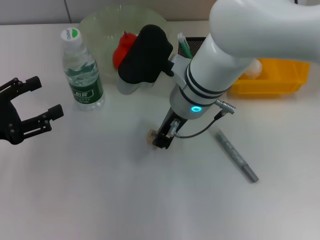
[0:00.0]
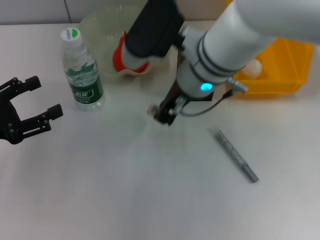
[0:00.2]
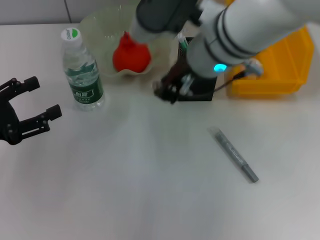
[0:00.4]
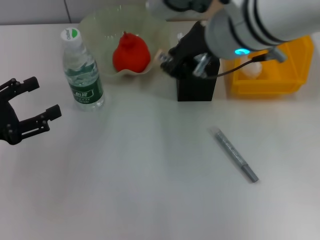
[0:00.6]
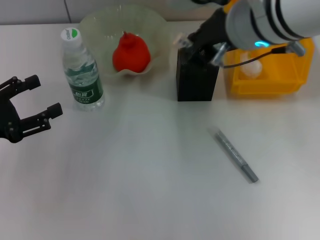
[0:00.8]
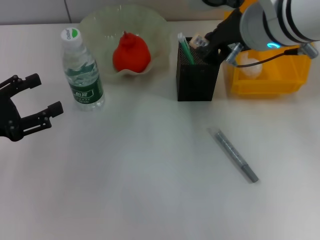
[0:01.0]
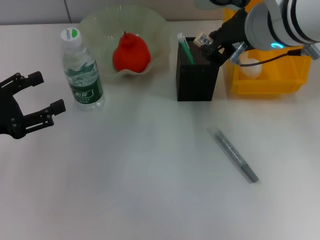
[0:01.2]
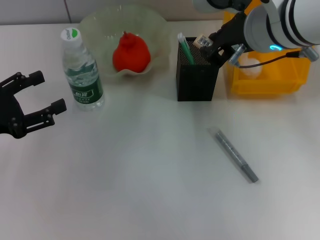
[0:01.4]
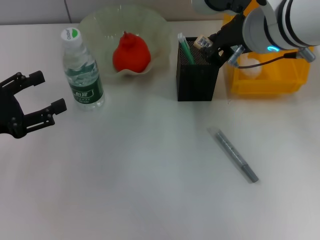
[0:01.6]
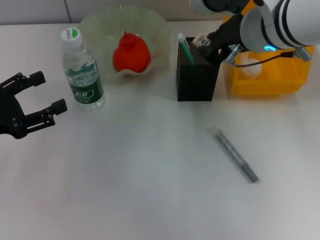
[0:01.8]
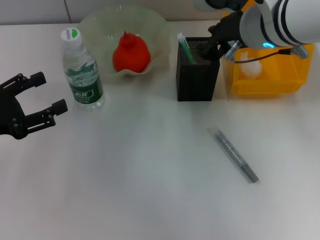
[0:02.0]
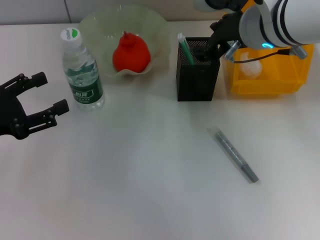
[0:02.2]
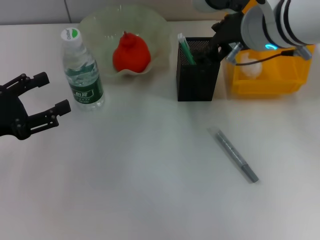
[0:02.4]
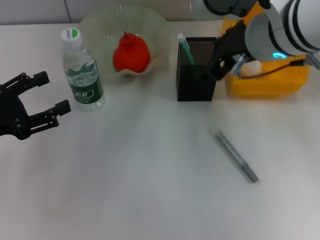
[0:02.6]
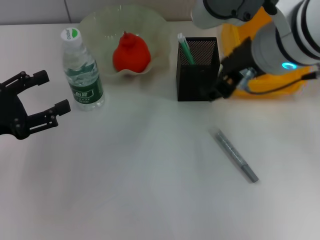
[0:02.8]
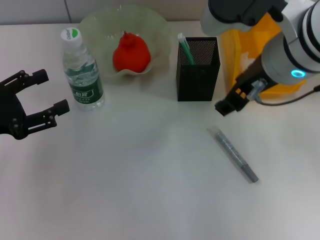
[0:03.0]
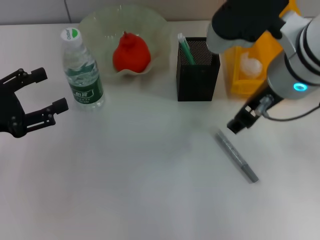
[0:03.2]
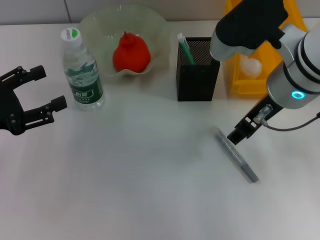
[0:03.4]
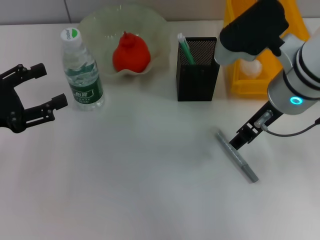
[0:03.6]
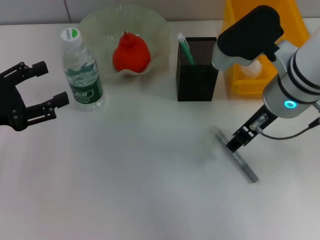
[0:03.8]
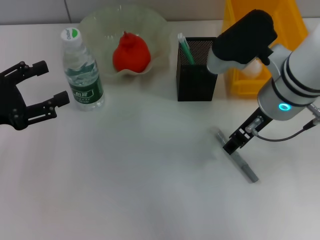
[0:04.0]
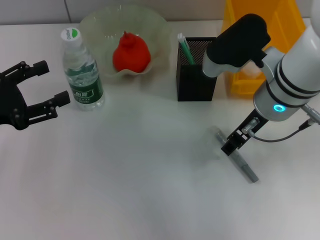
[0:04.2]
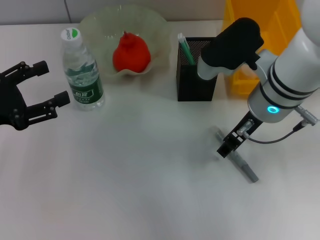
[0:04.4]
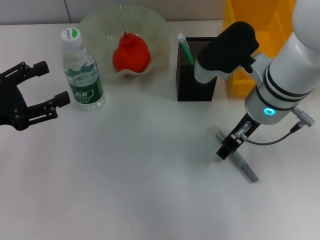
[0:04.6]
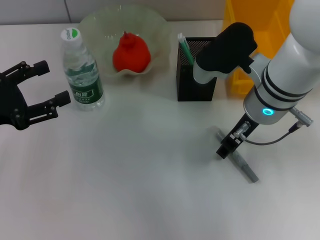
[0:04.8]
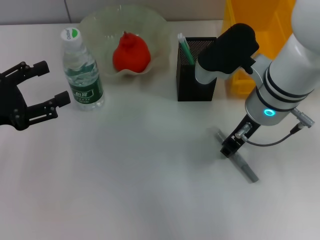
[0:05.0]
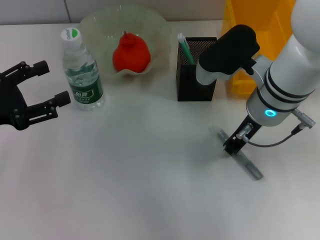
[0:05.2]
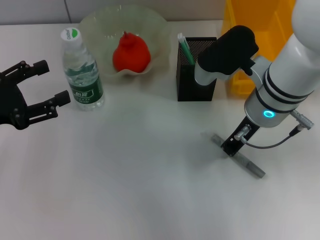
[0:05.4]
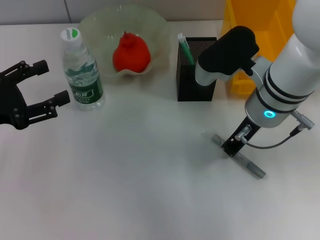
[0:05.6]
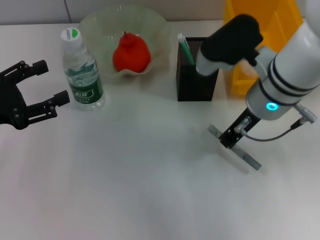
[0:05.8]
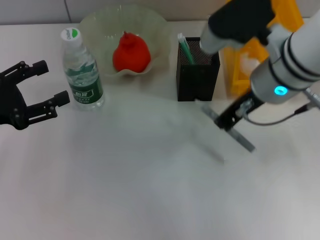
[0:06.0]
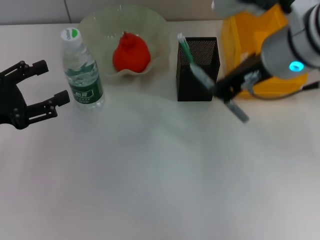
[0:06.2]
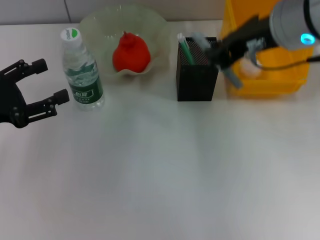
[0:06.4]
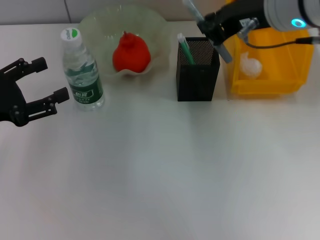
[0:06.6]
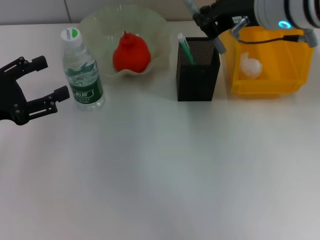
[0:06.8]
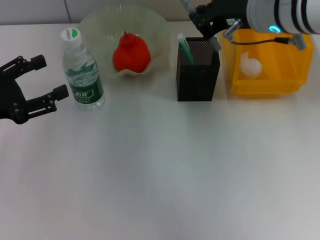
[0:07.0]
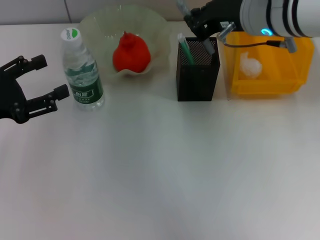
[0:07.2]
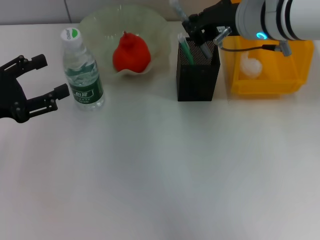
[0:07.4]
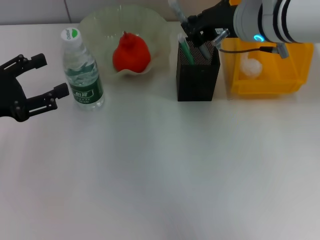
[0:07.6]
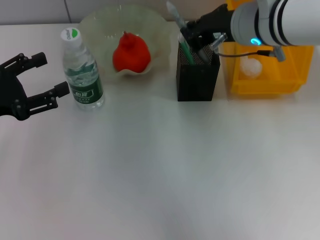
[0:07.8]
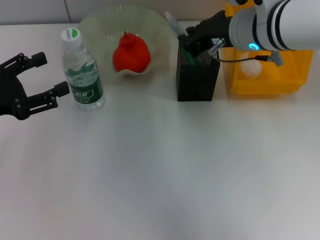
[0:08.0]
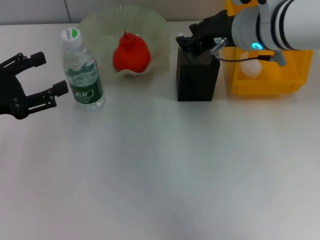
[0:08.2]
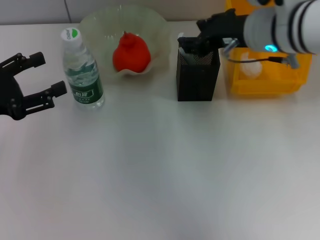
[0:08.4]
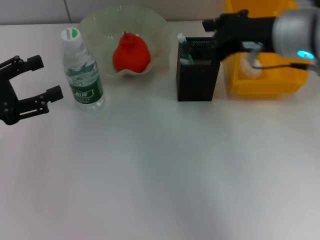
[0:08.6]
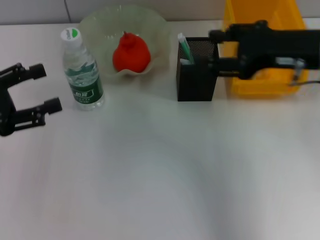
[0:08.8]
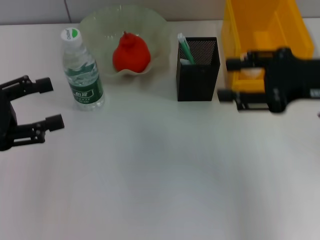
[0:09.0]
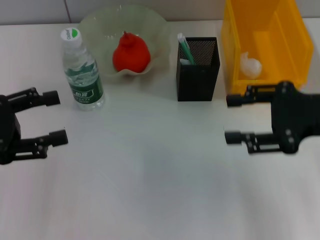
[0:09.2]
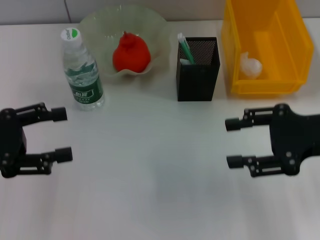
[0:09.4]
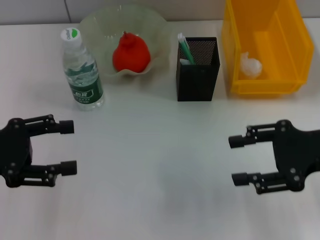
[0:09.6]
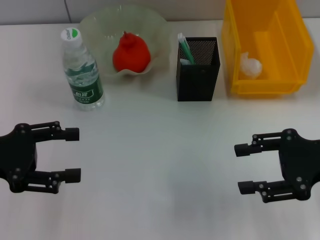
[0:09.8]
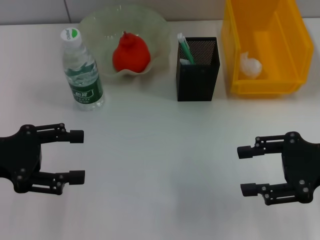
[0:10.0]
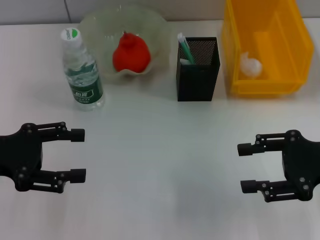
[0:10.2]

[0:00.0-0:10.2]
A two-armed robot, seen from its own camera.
Step, 0:00.0 to 0:02.0: Put the eraser into the pen holder with the right hand.
Step, 0:02.2 to 0:05.2: Grab the gray glue with the right hand.
Step, 0:05.4 to 0:08.4: Place the gray glue into the pen holder with the right hand.
0:00.0 to 0:01.4: The right gripper heads upward and to the right, covering some 10 cm.
0:01.4 to 0:03.0: The right gripper opens.
0:03.0 to 0:04.4: The right gripper travels downward by about 10 cm.
0:04.4 to 0:05.8: The right gripper closes.
0:05.8 to 0:07.2: The right gripper moves upward, approximately 5 cm.
0:07.2 to 0:08.8: The right gripper shifts about 10 cm to the right and backward, and opens up.
0:08.8 to 0:10.2: The right gripper travels downward, backward and to the right by roughly 10 cm.

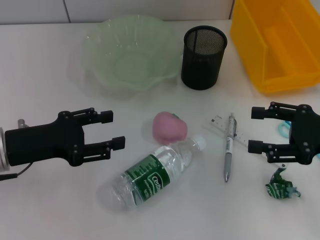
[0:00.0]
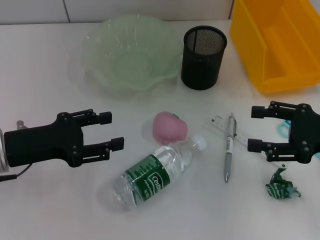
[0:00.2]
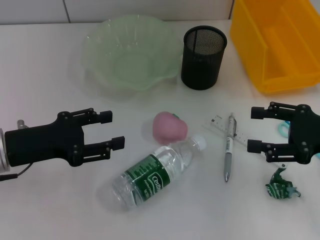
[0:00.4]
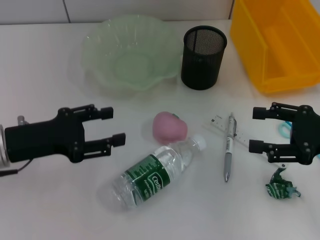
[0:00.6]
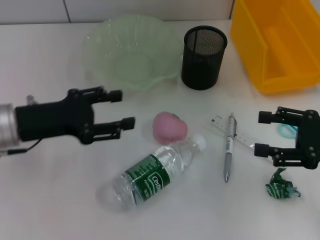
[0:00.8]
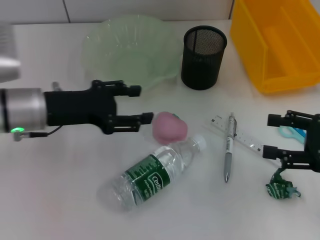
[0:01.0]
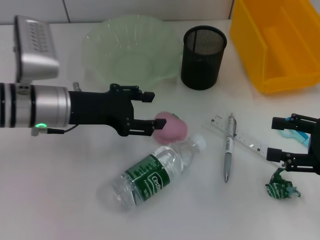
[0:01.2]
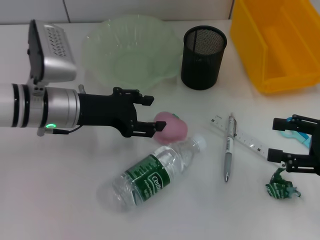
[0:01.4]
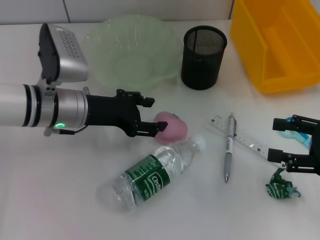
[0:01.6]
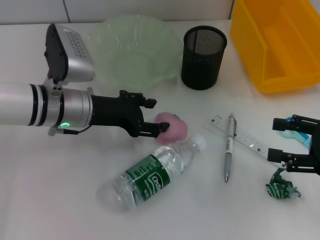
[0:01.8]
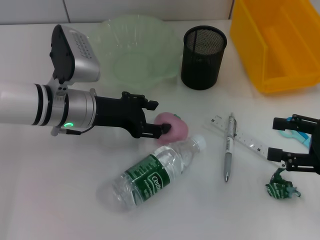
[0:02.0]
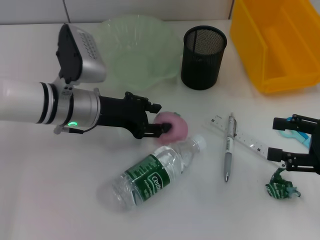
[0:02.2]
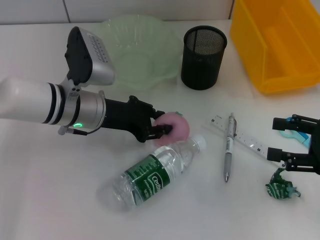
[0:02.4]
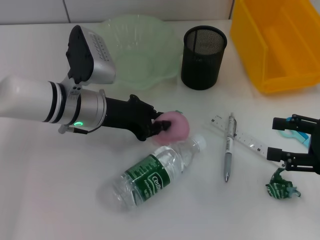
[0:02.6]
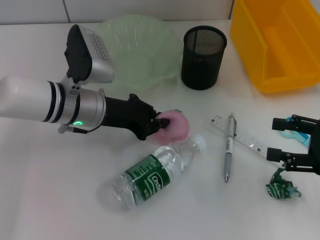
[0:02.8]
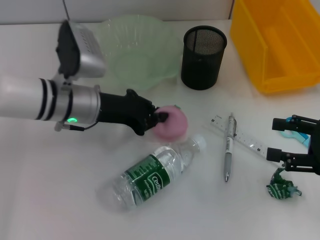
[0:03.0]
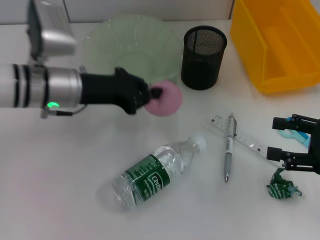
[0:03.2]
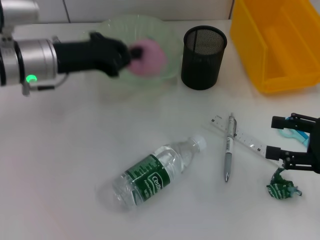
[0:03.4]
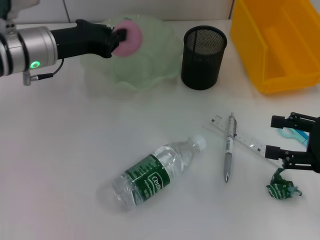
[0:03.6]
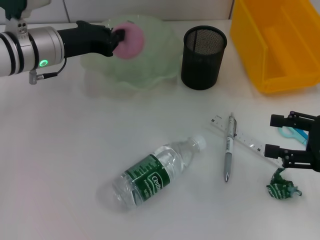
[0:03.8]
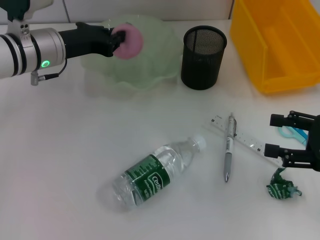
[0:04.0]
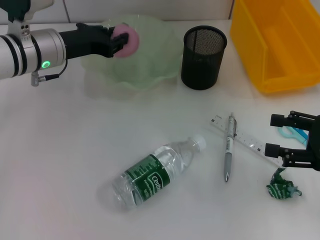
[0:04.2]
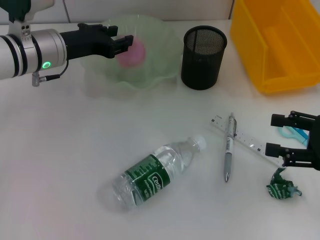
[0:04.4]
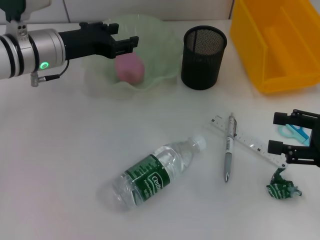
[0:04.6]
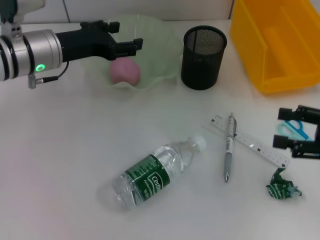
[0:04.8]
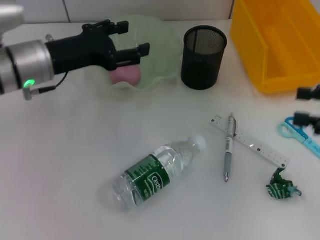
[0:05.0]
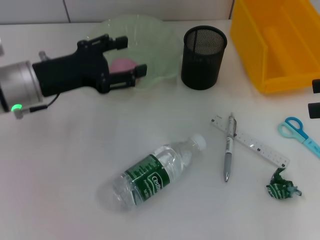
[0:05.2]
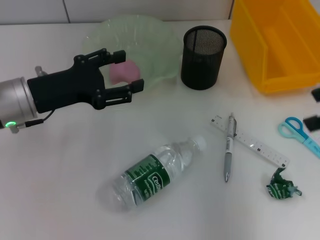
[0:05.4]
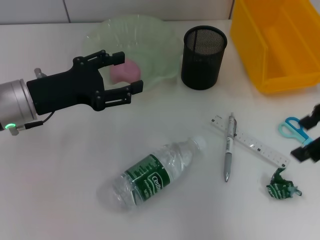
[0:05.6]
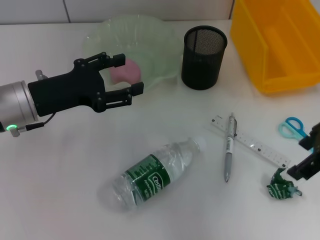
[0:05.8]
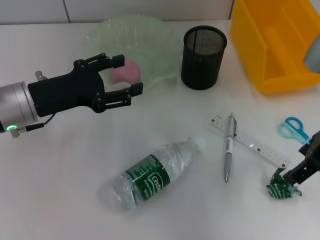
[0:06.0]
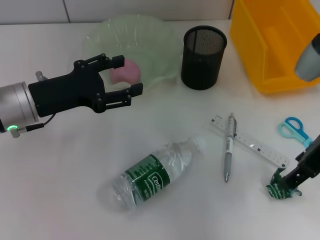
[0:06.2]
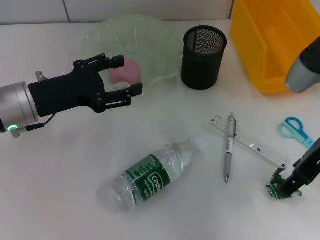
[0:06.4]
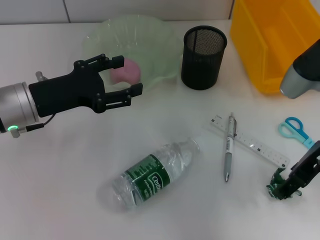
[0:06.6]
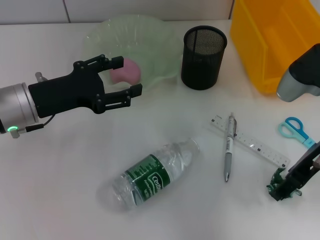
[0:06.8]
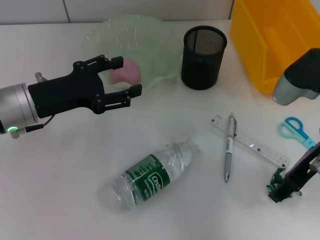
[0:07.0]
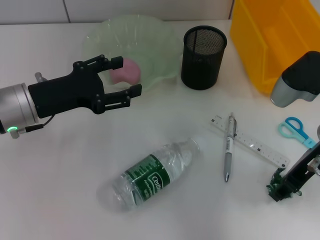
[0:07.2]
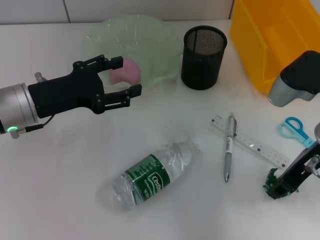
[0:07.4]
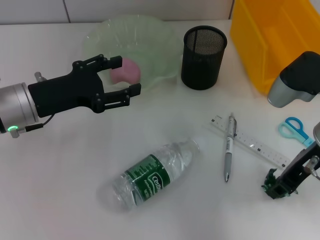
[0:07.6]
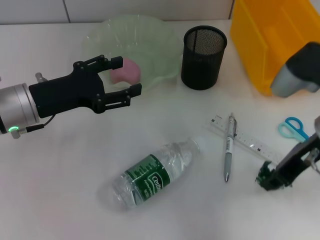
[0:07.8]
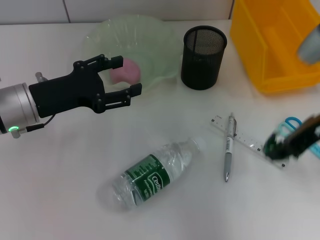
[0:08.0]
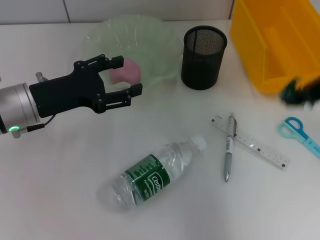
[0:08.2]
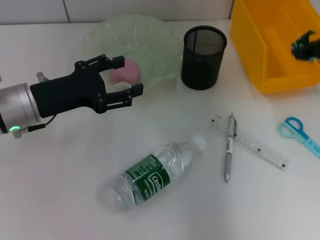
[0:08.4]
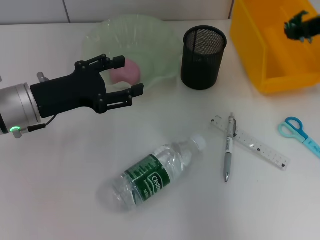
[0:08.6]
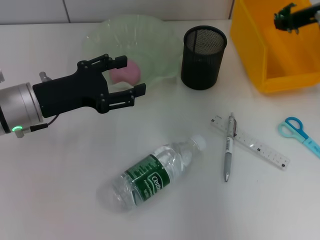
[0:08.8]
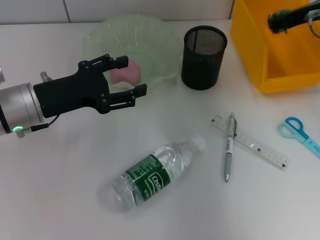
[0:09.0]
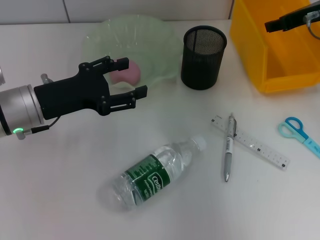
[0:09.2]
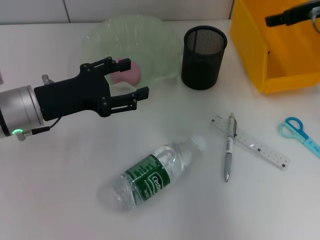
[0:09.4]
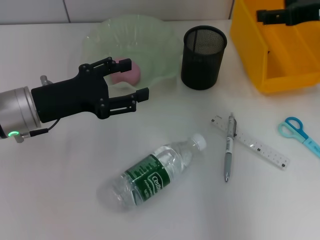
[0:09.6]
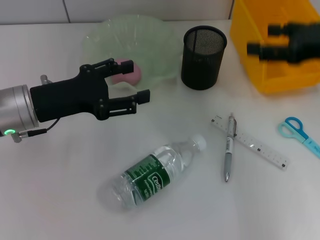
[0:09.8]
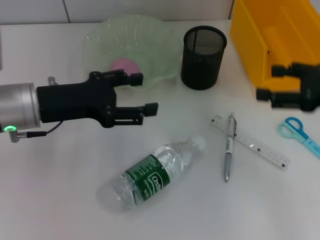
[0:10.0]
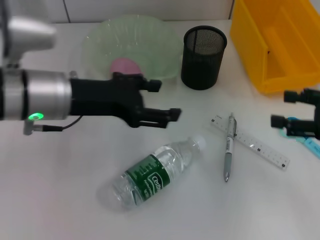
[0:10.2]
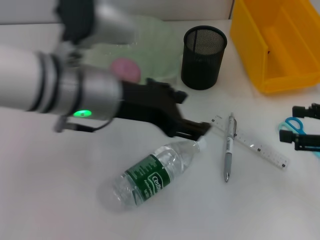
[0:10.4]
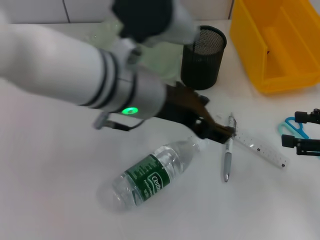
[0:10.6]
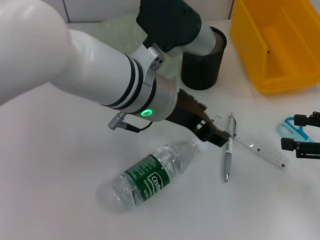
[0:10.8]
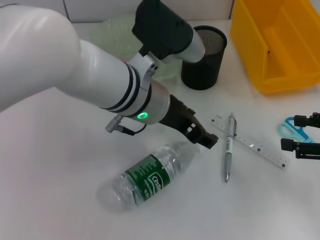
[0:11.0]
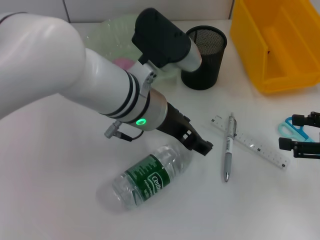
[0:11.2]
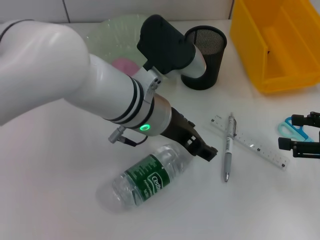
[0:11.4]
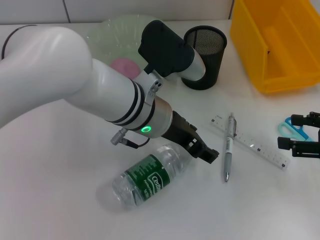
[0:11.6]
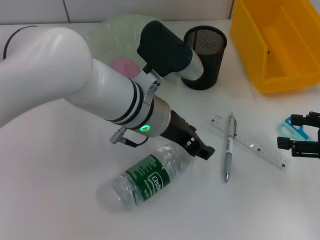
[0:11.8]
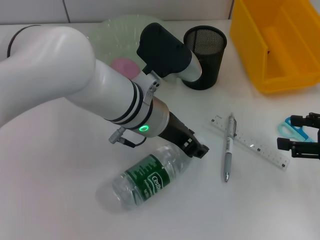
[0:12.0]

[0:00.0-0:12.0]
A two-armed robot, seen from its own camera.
Step, 0:00.0 to 0:02.8: Grab the peach with the left hand.
Step, 0:03.0 to 0:04.4: Place the peach into the fruit bowl with the left hand.
Step, 0:04.6 to 0:07.4: Grab the plastic with the right hand.
Step, 0:07.6 to 0:09.0: Place the plastic into the trash can with the right hand.
0:00.0 to 0:01.6: The left gripper goes approximately 10 cm to the right and forward.
0:01.6 to 0:03.0: The left gripper closes its fingers.
0:03.0 to 0:04.4: The left gripper travels forward by some 5 cm.
0:04.4 to 0:06.0: The right gripper goes approximately 15 cm upward, to the left and forward. Meanwhile the left gripper travels backward by about 10 cm, and opens its fingers.
0:06.0 to 0:07.6: The right gripper heads downward, covering roughly 5 cm, and closes its fingers.
0:07.6 to 0:09.0: The right gripper is displaced forward by approximately 15 cm.
0:09.0 to 0:10.4: The right gripper moves backward, to the right and downward, roughly 20 cm, and opens. Meanwhile the left gripper heads to the right and upward, covering about 15 cm.
0:10.4 to 0:12.0: The left gripper travels downward and to the right by roughly 10 cm.
